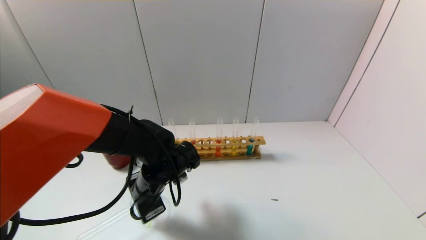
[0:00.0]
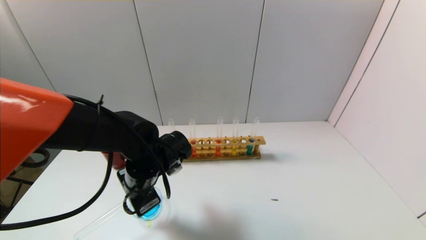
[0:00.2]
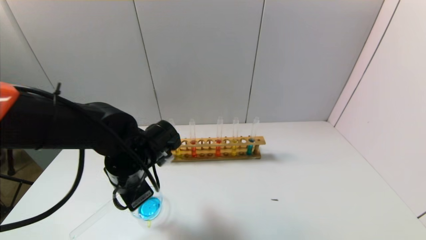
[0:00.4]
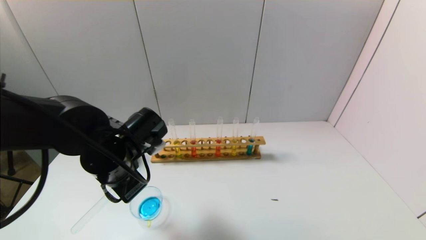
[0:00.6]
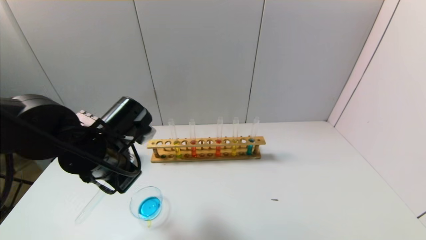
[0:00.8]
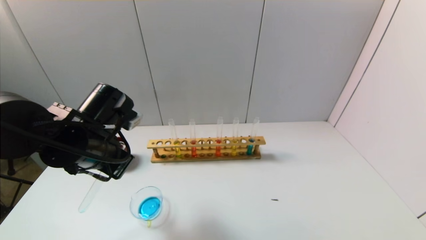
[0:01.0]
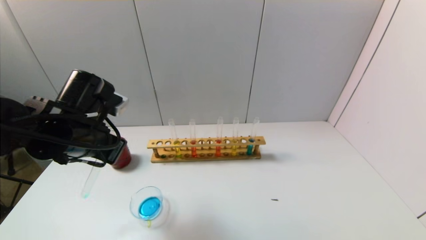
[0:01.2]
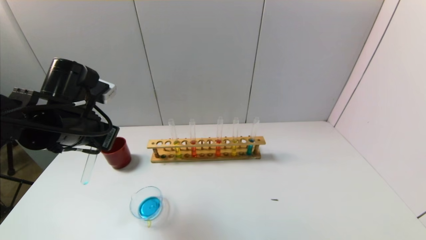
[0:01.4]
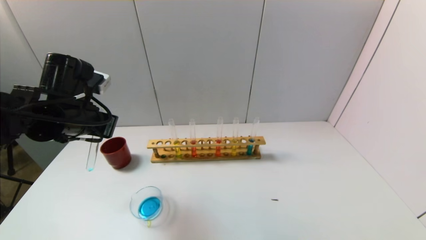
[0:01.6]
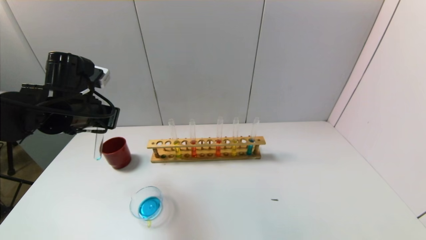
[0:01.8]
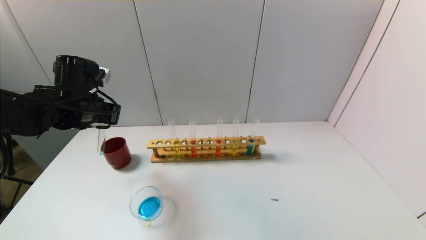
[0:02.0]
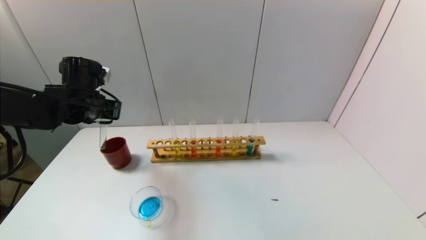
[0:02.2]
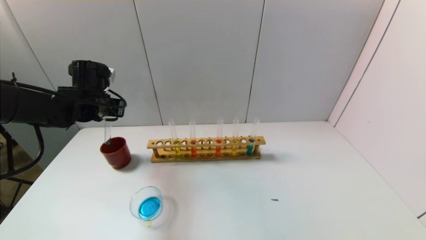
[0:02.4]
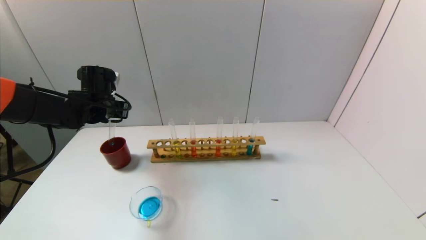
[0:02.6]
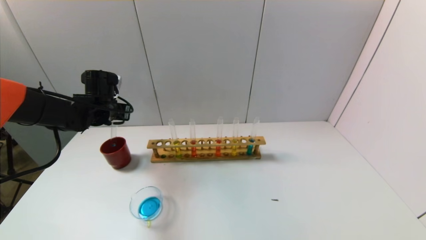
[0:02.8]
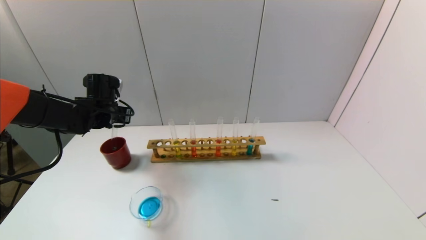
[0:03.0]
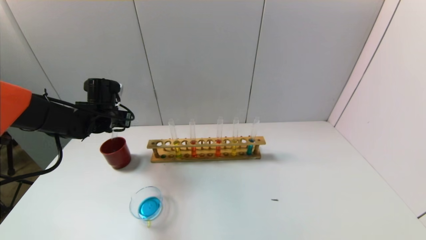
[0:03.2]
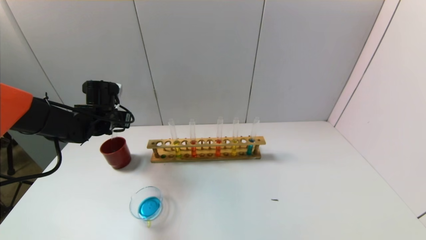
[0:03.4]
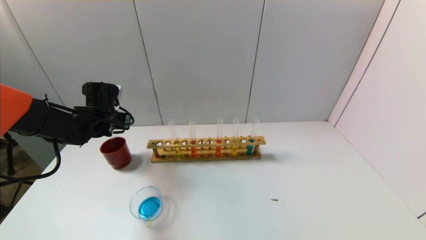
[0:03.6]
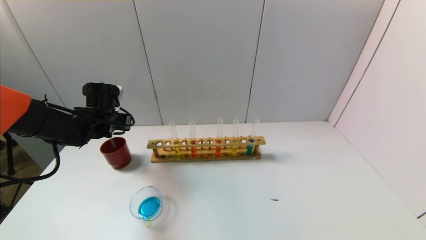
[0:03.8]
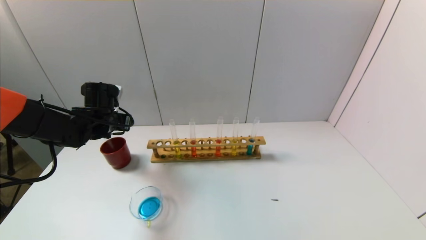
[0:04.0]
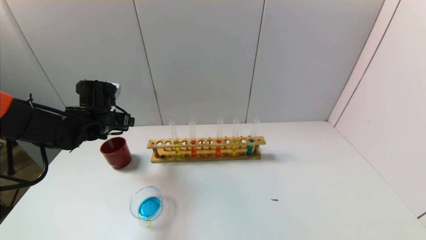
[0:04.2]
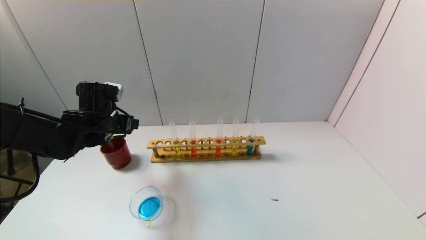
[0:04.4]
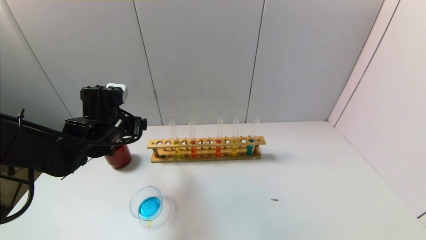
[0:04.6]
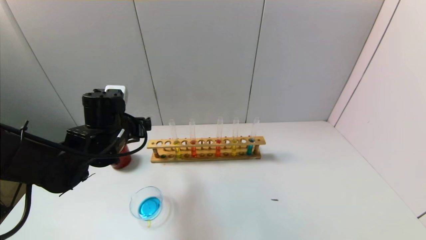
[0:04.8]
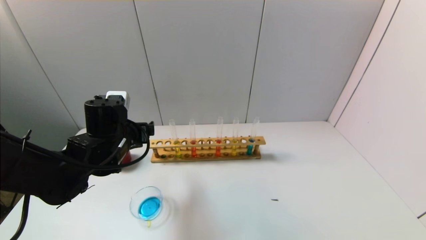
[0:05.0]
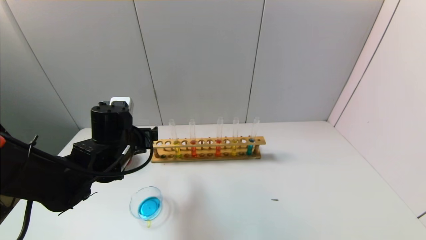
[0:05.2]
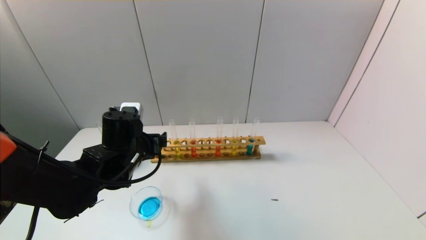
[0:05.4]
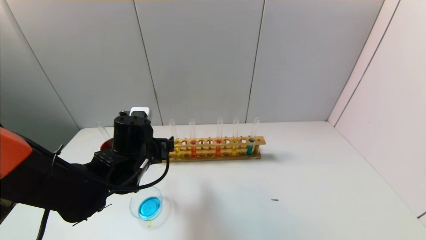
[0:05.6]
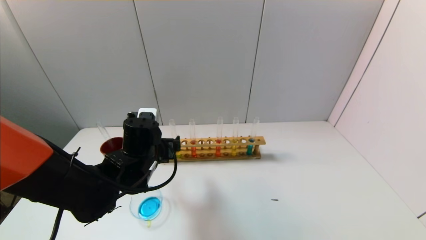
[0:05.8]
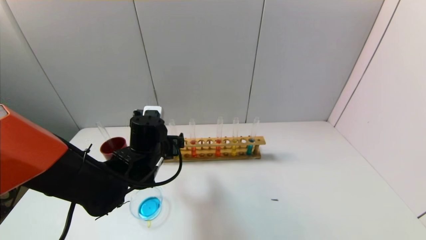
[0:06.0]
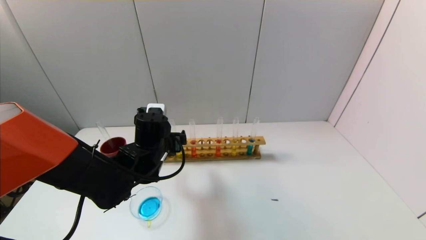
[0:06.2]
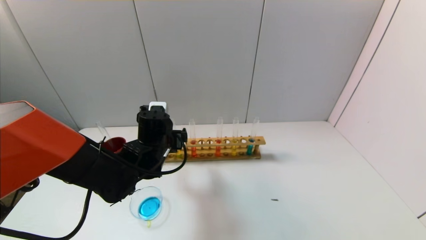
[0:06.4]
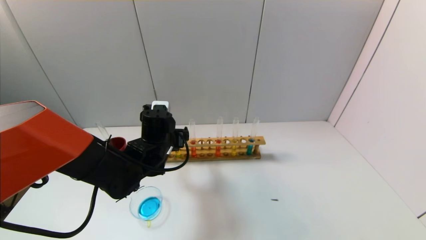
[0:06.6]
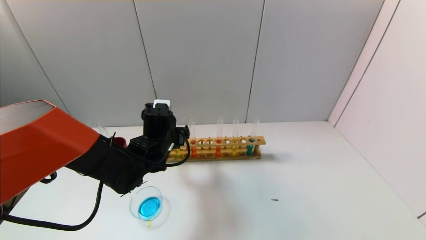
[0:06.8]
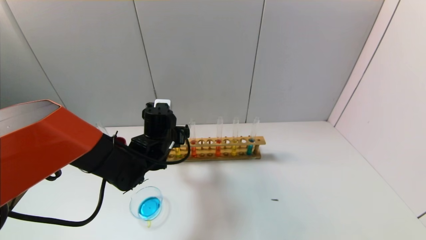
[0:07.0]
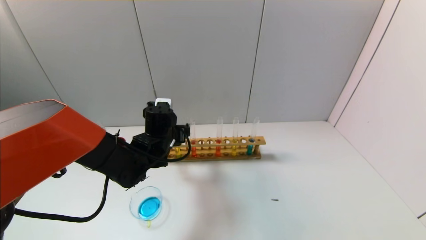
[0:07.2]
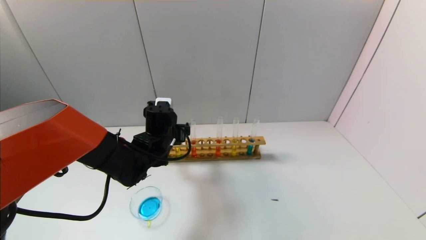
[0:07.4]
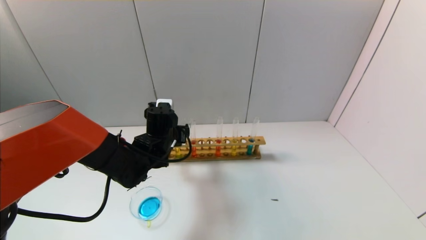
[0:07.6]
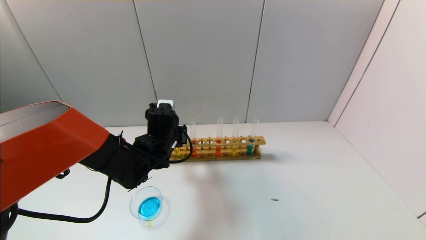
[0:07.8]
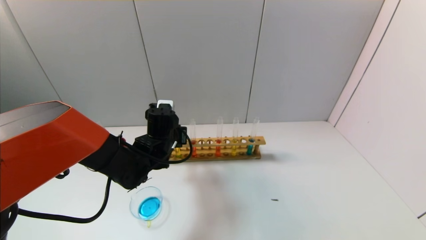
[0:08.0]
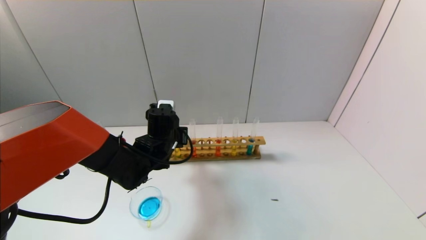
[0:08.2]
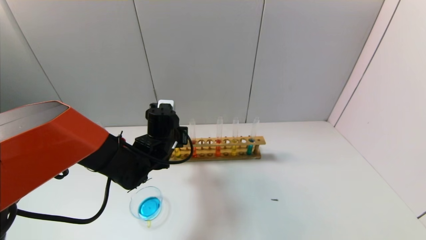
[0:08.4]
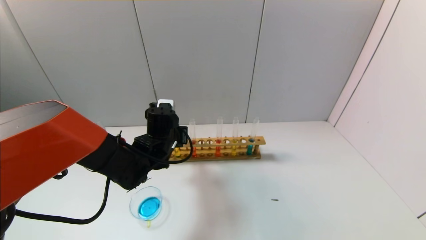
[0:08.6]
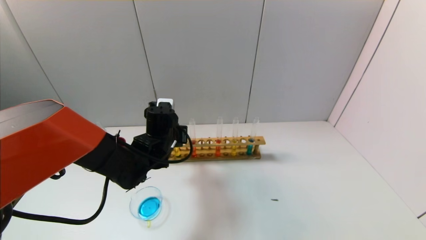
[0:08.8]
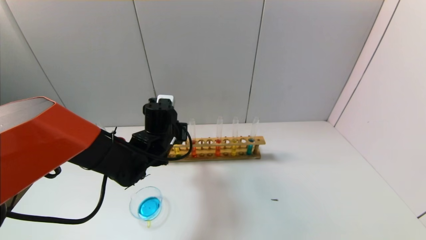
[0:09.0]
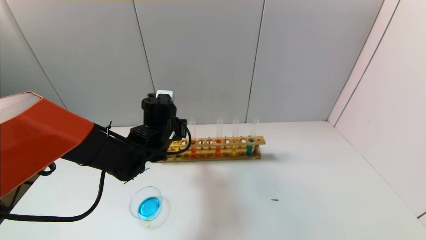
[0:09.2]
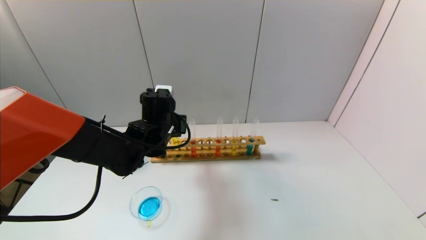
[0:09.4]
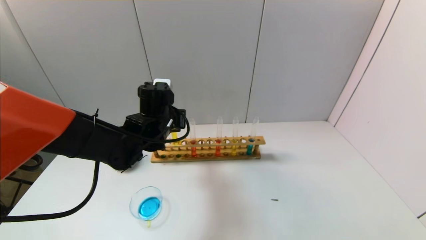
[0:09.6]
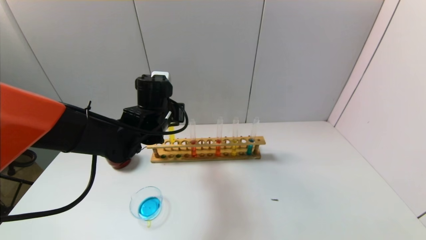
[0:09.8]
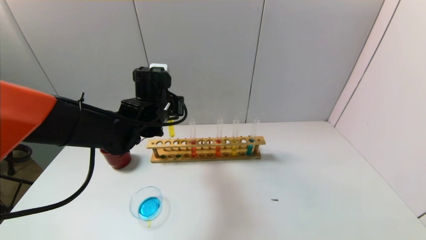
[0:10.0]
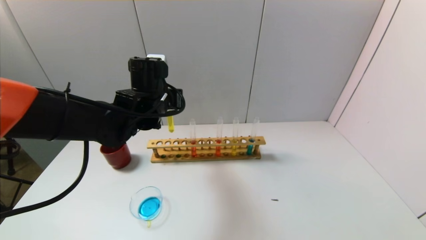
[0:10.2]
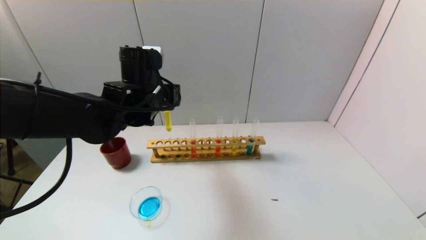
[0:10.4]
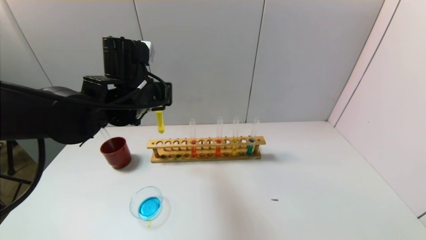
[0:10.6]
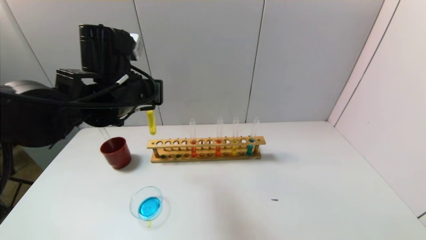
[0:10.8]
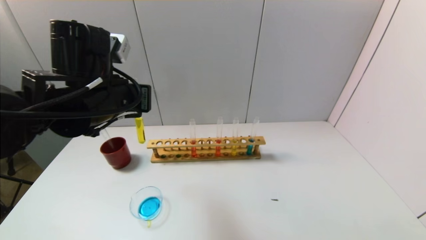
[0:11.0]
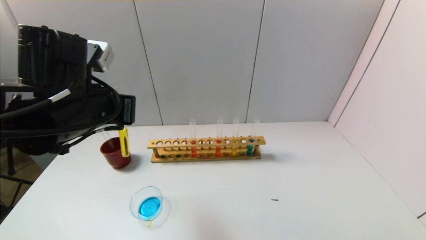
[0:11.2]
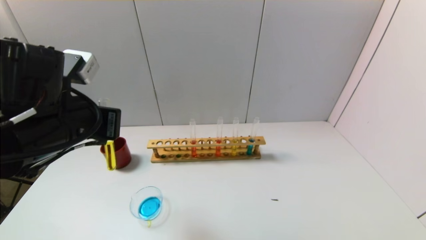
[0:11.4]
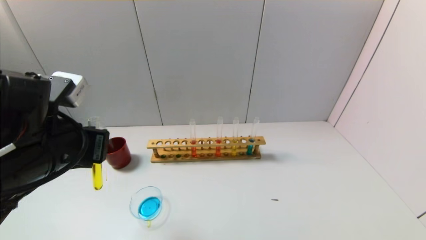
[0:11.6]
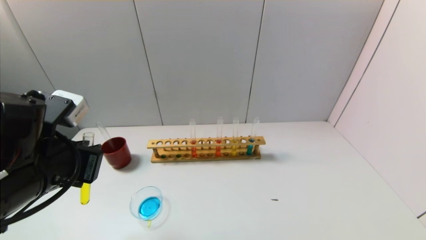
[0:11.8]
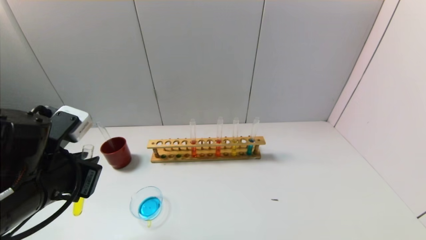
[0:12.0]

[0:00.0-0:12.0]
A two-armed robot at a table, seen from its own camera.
Task of the whole recording: pick up the test tube with yellow pigment and the test tube with blue pigment by grippers and pour them into the beaker.
Step, 0:00.0 to 0:04.0: Place the test tube into the brown cup with the left gripper.
Step, 0:04.2 to 0:08.6: Grasp the yellow reagent with the left gripper.
0:00.0 to 0:01.6: The left gripper travels upward and to the left by about 20 cm.
0:01.6 to 0:03.0: The left gripper heads forward and downward, covering roughly 15 cm.
0:03.0 to 0:04.4: The left gripper travels backward by some 5 cm, and opens its fingers.
0:04.4 to 0:06.0: The left gripper shifts approximately 10 cm to the right.
0:06.0 to 0:07.6: The left gripper goes approximately 5 cm forward.
0:07.6 to 0:09.0: The left gripper closes its fingers.
0:09.0 to 0:10.4: The left gripper heads upward, covering approximately 10 cm.
0:10.4 to 0:12.0: The left gripper goes roughly 20 cm backward and to the left.

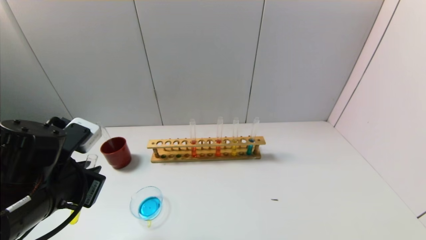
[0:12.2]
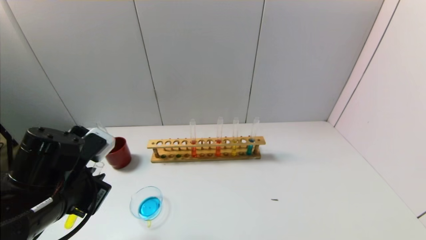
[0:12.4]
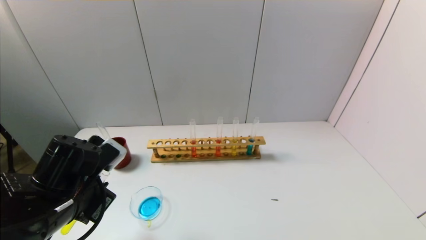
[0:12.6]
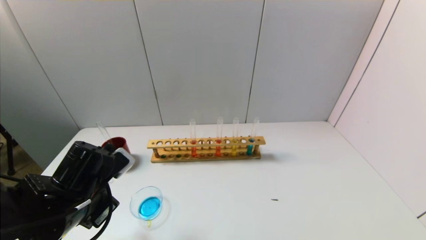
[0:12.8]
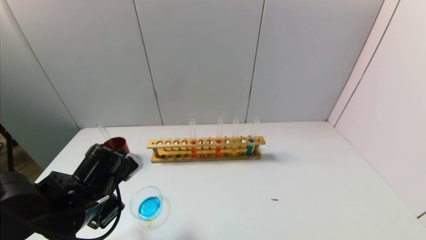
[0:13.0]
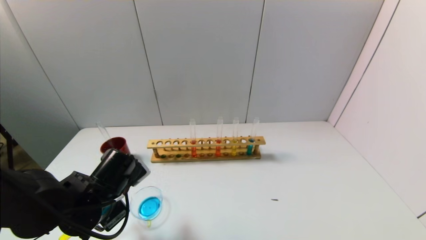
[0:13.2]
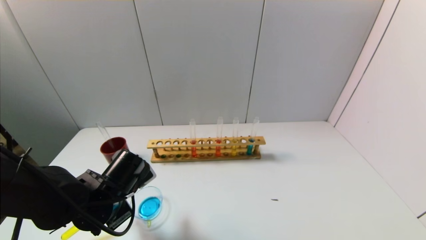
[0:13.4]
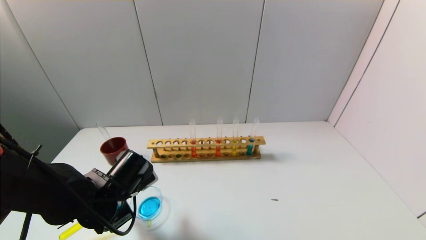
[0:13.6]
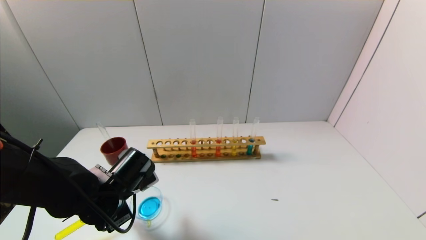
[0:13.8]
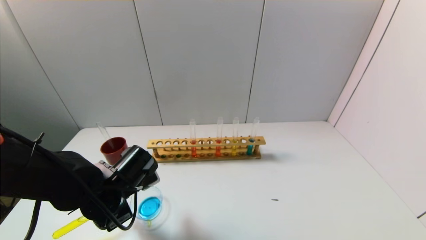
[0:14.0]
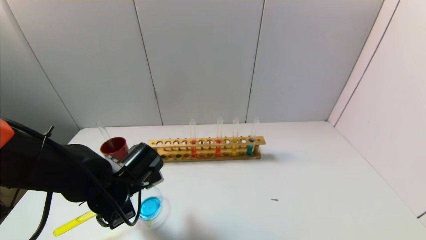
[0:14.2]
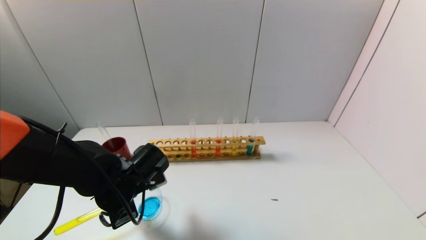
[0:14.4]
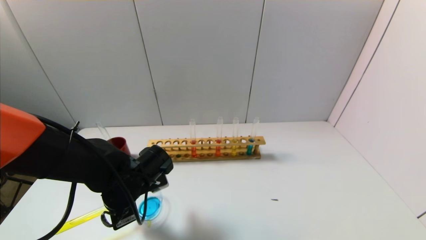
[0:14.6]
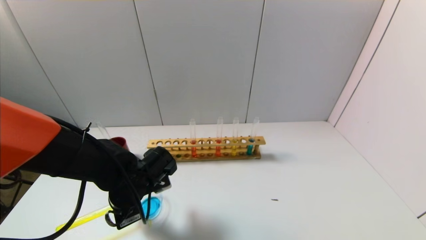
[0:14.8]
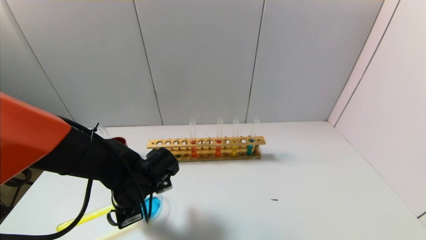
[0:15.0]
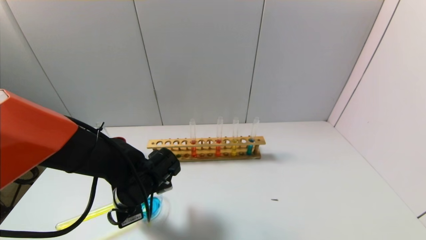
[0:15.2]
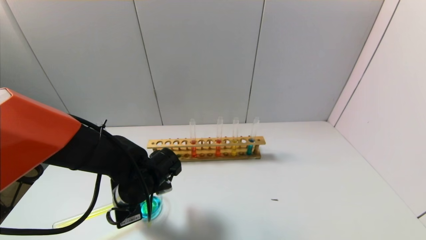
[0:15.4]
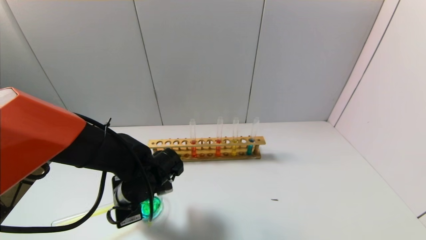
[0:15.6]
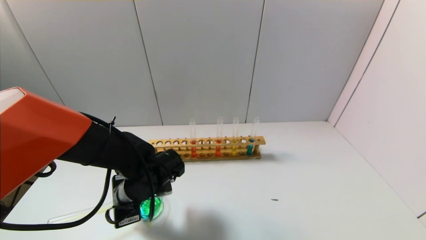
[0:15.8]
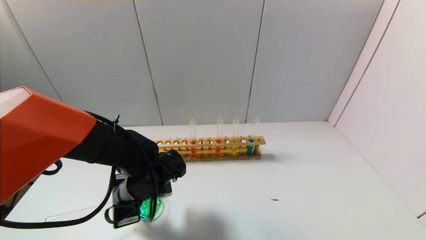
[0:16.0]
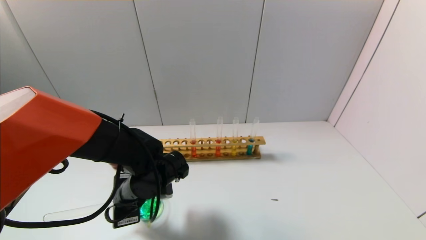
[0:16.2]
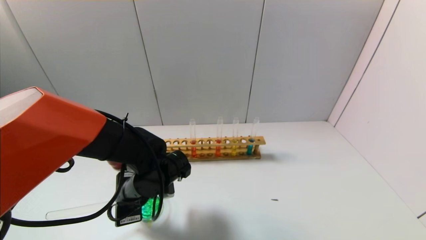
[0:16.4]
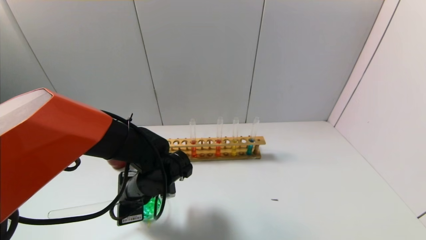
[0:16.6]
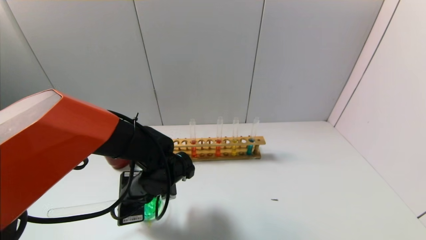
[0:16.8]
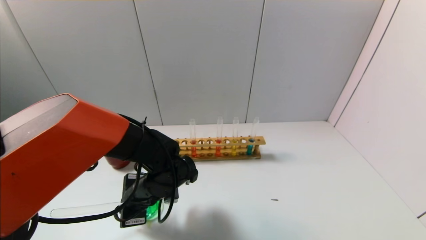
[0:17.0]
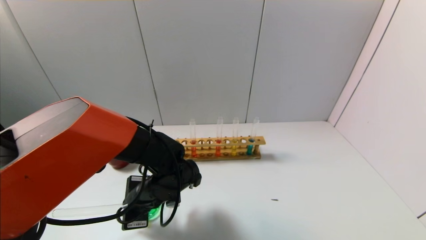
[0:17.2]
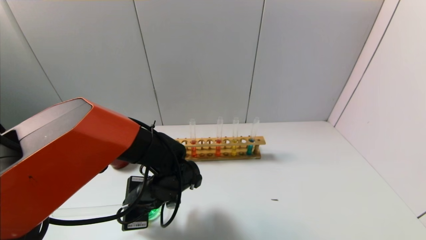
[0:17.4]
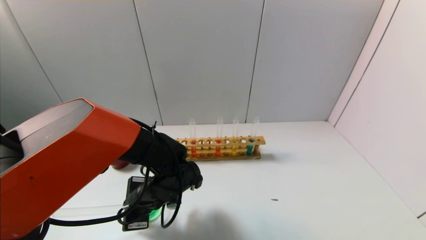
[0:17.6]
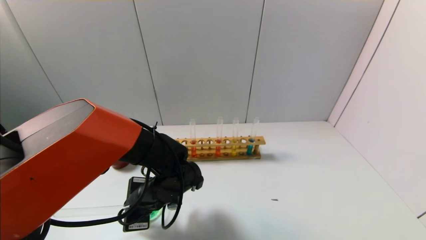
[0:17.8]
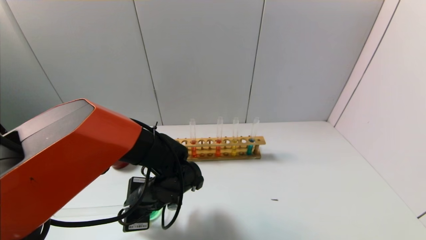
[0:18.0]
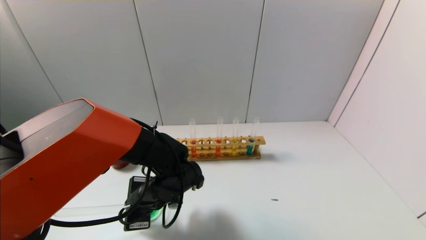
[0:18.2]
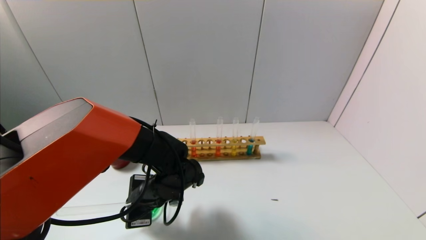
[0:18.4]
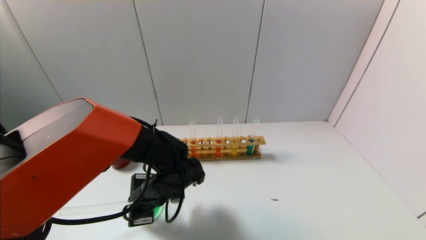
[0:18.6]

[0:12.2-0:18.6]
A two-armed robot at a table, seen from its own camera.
Task of the whole recording: pick up the test tube with yellow pigment and the test tube with blue pigment by grippers and pour them into the beaker.
Step, 0:12.2 to 0:18.0: Pour the yellow reagent into the graduated cylinder with the left gripper.
0:12.2 to 0:13.8: The left gripper moves downward and forward, about 10 cm.
0:13.8 to 0:15.4: The grippers stay close to where they were, moving slightly.
0:15.4 to 0:17.0: The grippers stay close to where they were, moving slightly.
0:17.0 to 0:18.6: There are only small adjustments of the grippers.
